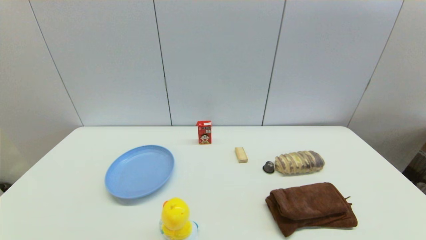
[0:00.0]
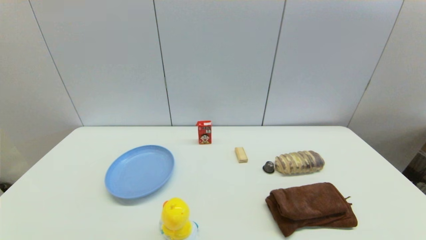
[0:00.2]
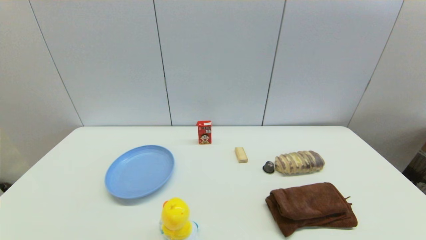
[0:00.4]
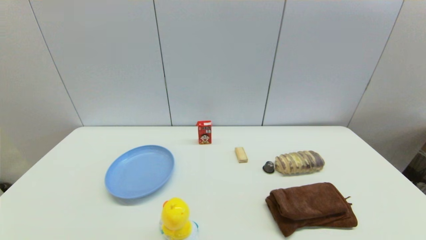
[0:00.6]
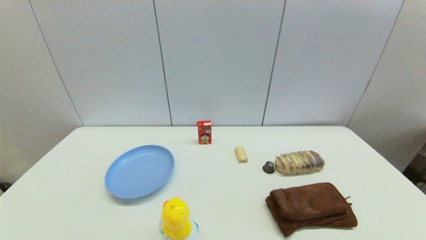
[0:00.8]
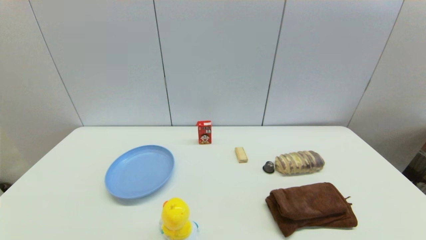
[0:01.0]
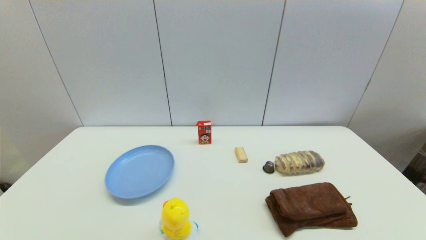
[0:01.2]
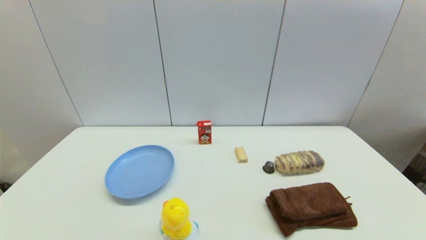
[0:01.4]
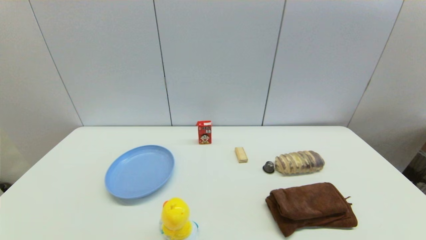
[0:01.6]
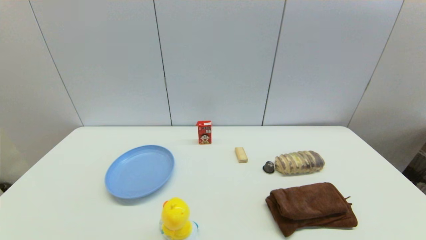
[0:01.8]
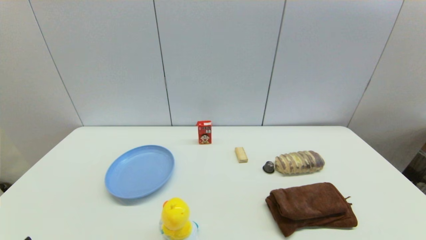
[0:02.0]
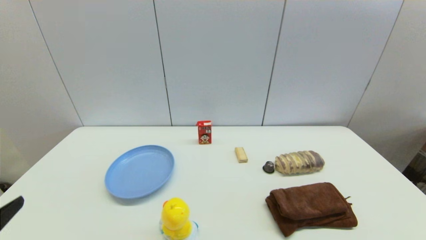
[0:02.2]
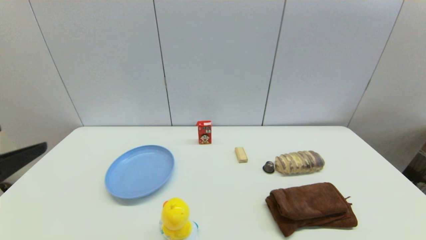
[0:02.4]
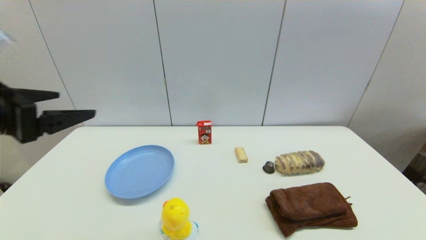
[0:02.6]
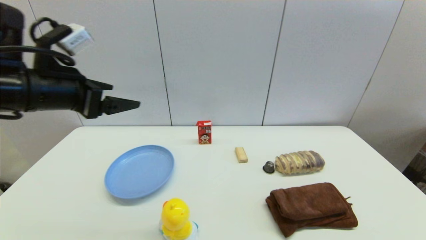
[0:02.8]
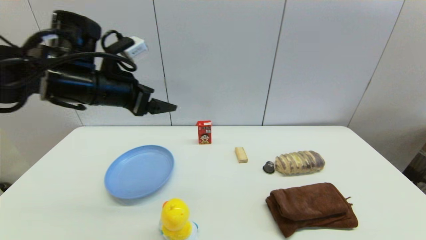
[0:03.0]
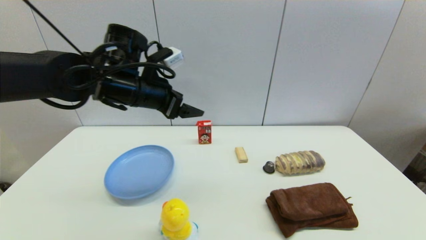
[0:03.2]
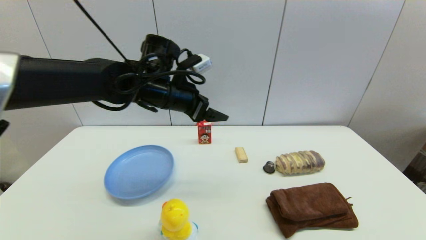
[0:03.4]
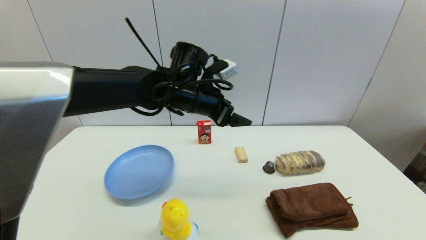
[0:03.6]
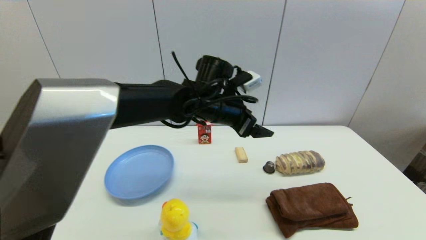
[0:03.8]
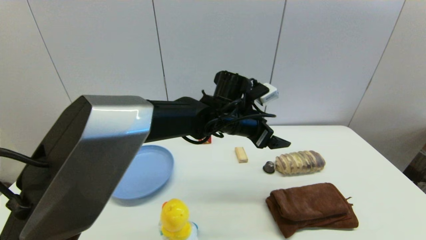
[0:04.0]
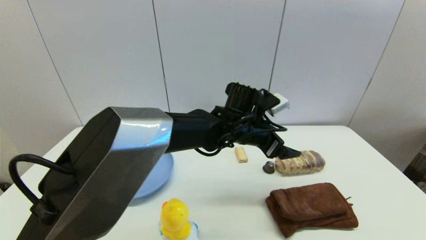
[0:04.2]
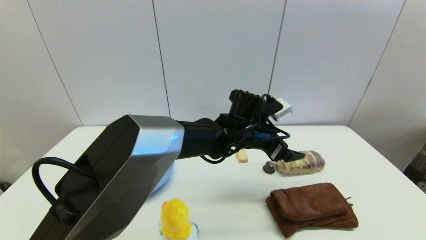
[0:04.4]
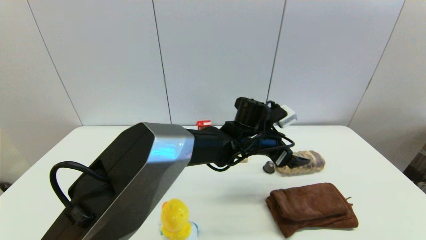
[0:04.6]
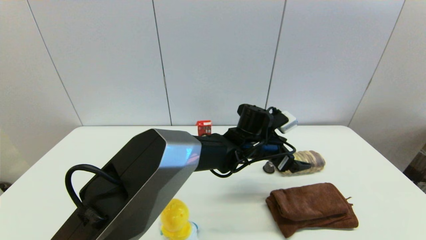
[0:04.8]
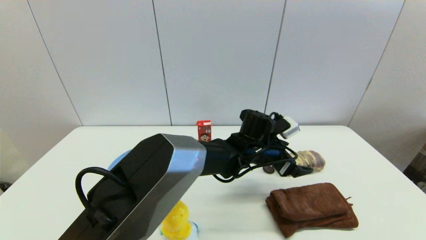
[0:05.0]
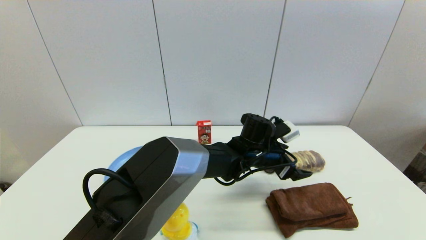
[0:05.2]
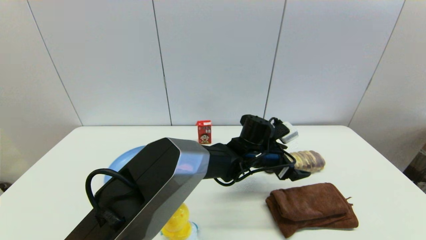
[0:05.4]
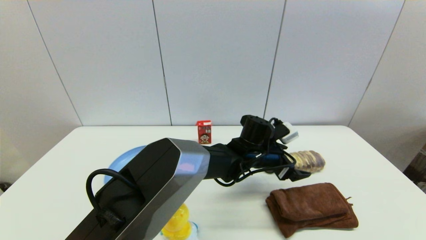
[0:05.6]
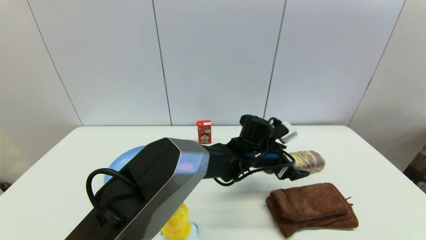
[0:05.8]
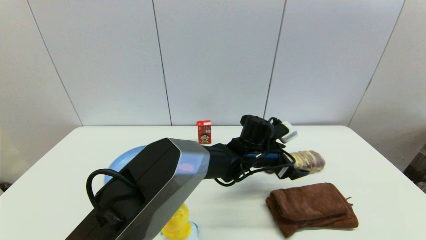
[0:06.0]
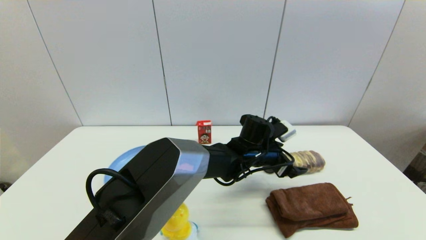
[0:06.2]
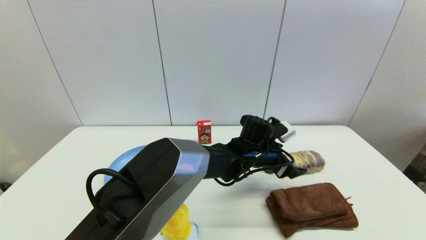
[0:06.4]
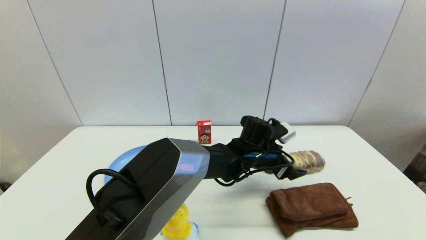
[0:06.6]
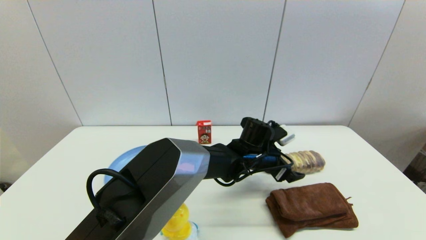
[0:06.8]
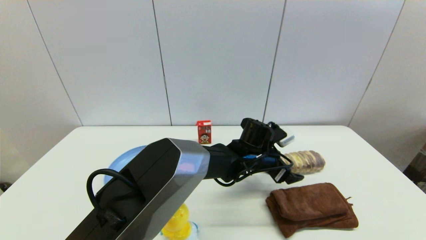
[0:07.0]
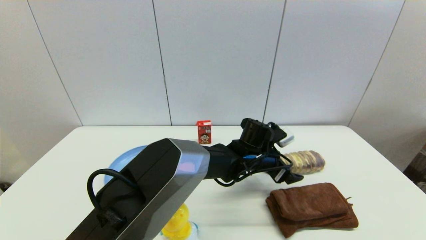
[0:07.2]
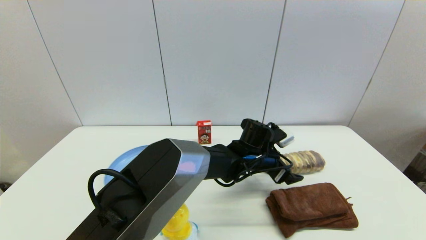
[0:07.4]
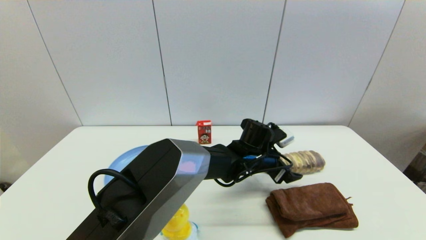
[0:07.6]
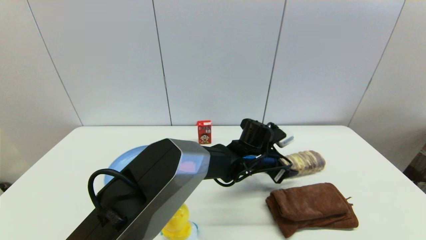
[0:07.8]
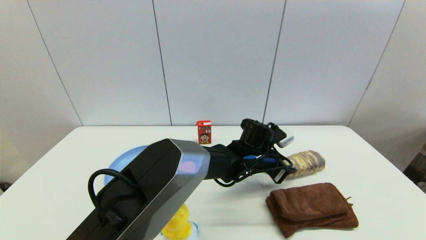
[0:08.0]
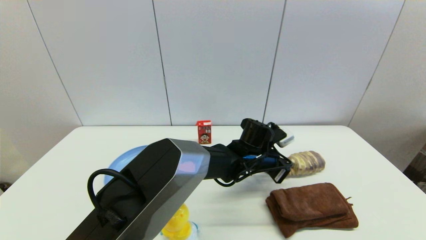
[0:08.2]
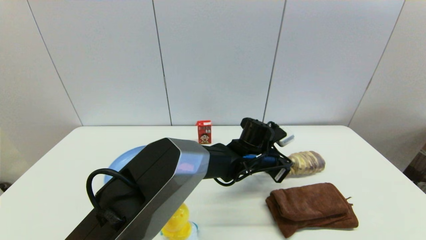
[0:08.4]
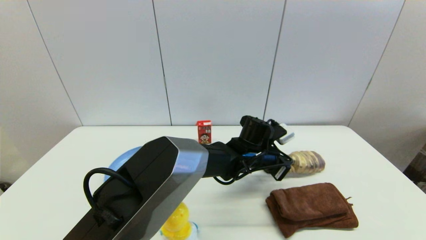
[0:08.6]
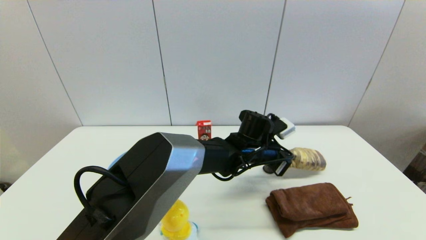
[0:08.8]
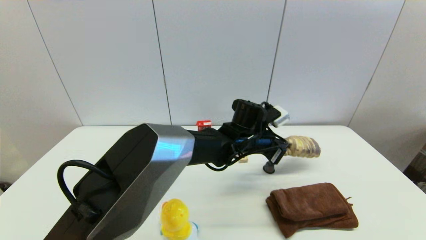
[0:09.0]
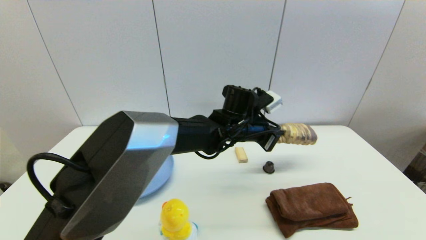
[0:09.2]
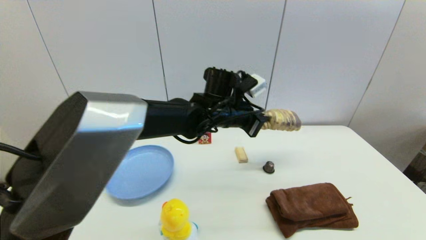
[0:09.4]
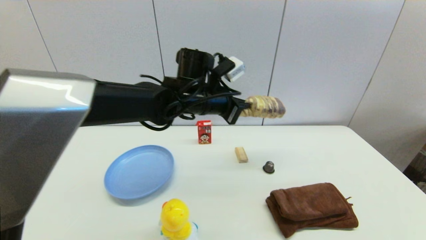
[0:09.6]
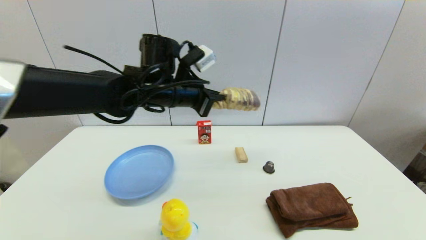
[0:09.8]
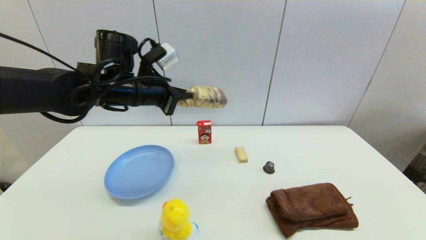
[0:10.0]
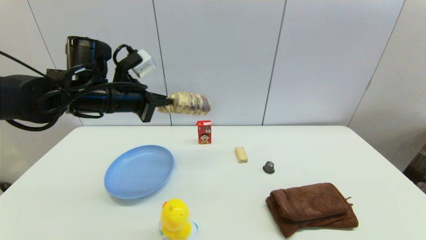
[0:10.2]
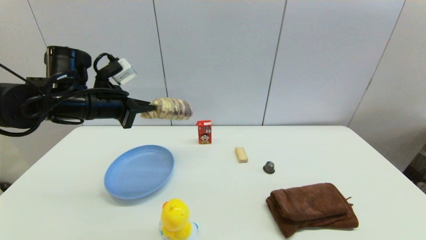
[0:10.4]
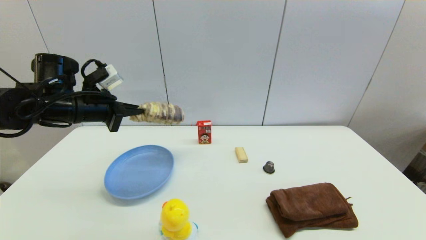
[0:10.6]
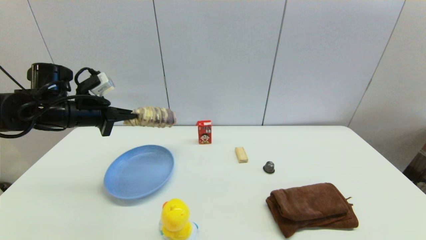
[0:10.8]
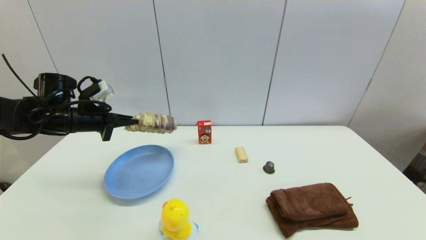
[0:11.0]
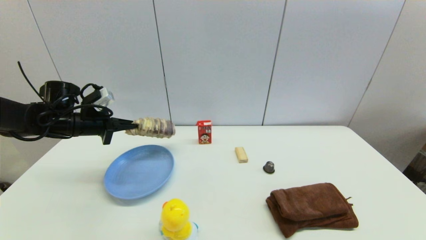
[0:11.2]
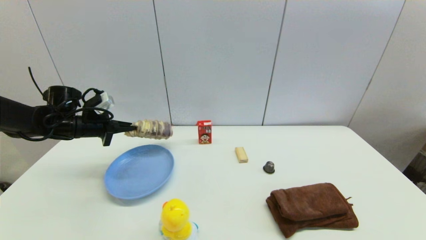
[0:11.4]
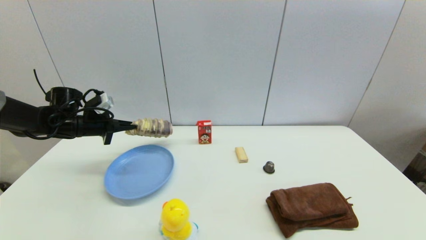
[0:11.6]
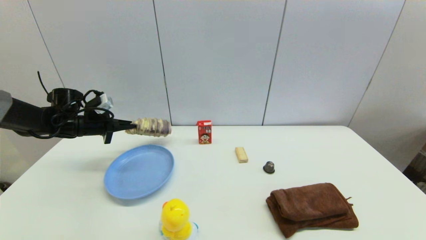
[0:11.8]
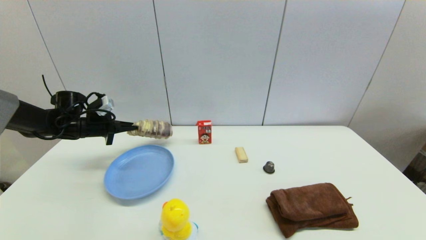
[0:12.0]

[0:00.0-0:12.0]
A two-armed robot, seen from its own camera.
Step, 0:02.0 to 0:08.2: Grasp the long bread with left gripper.
0:01.6 to 0:03.0: The left gripper moves forward and upward, roughly 35 cm.
0:03.0 to 0:04.4: The left gripper travels to the right and downward by some 30 cm.
0:04.4 to 0:06.0: The left gripper moves downward, some 5 cm.
0:06.0 to 0:07.6: There are only small adjustments of the grippers.
0:07.6 to 0:09.0: The left gripper is displaced upward by roughly 5 cm, and closes up.
0:09.0 to 0:10.4: The left gripper moves to the left, approximately 35 cm.
0:10.4 to 0:12.0: The left gripper shifts approximately 20 cm to the left, downward and forward.

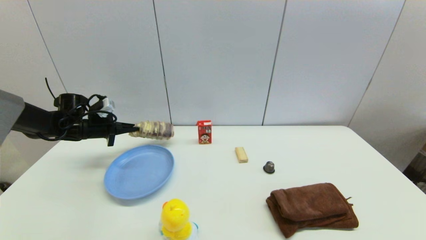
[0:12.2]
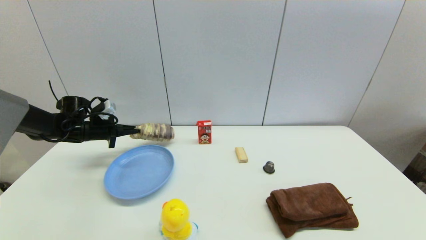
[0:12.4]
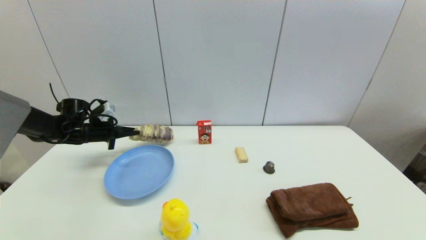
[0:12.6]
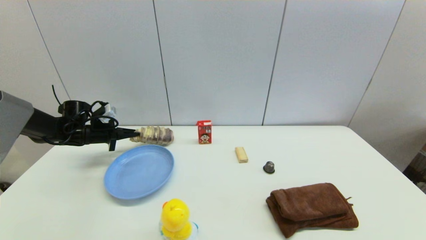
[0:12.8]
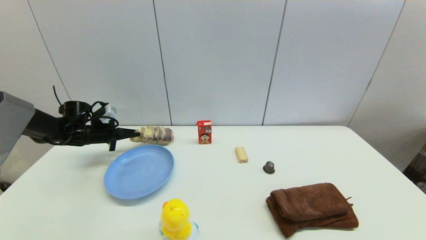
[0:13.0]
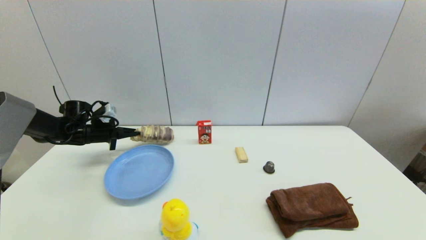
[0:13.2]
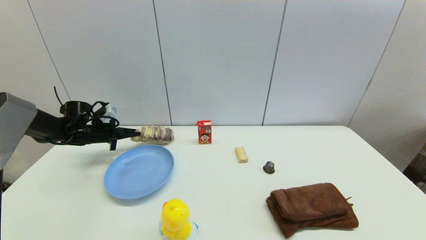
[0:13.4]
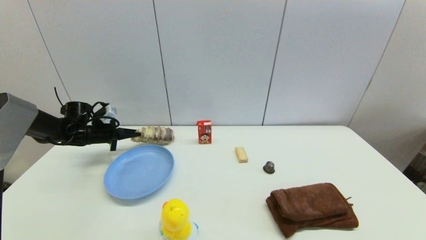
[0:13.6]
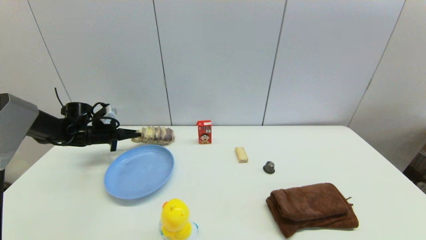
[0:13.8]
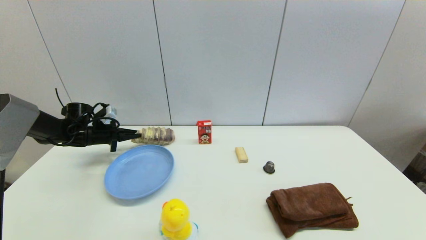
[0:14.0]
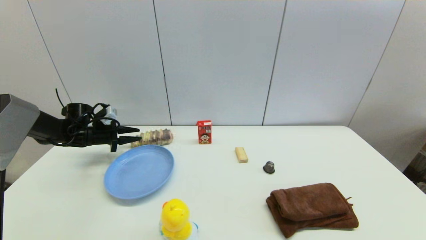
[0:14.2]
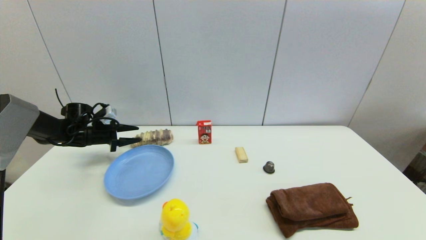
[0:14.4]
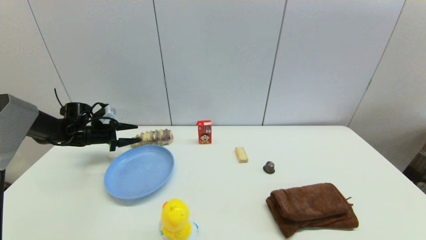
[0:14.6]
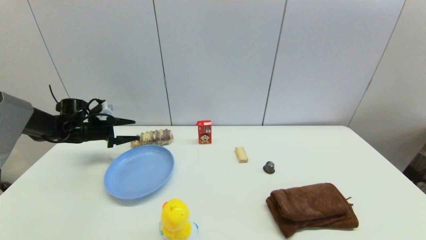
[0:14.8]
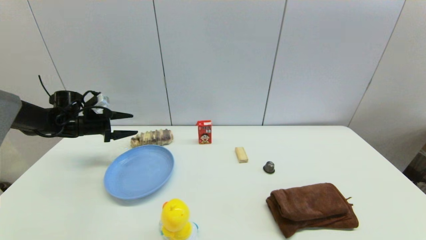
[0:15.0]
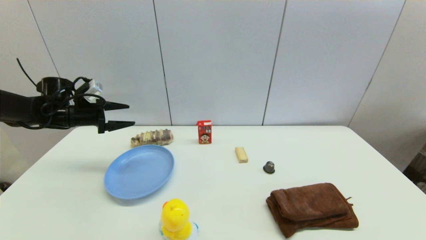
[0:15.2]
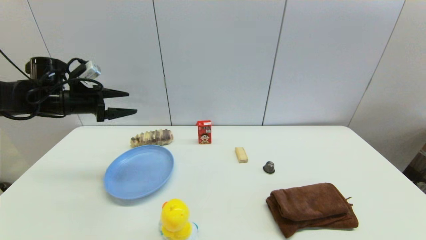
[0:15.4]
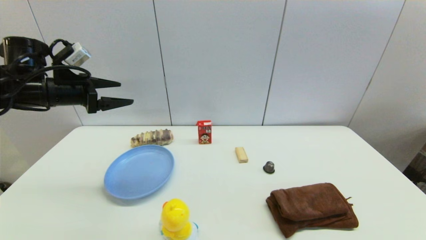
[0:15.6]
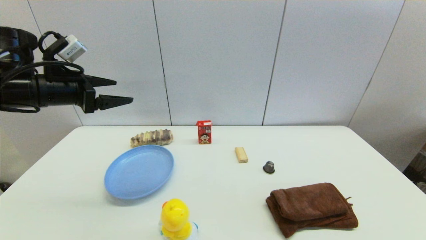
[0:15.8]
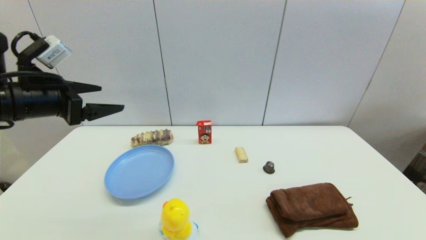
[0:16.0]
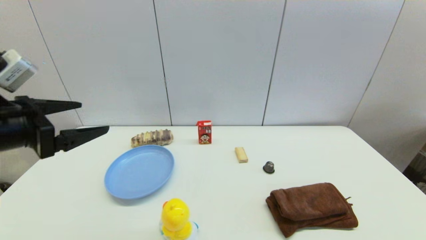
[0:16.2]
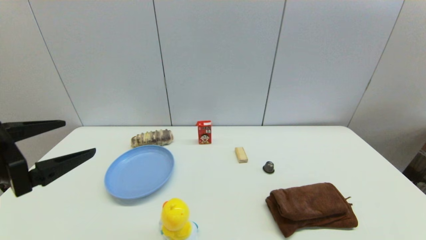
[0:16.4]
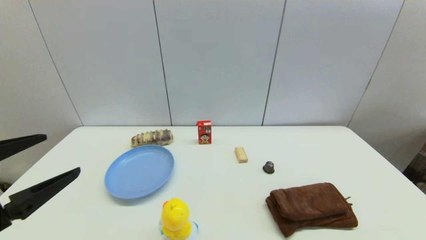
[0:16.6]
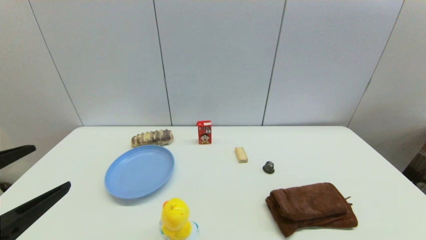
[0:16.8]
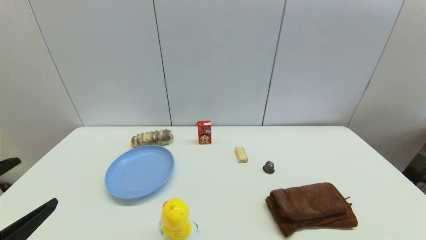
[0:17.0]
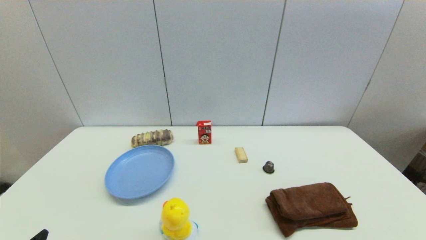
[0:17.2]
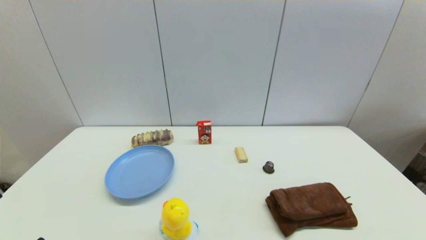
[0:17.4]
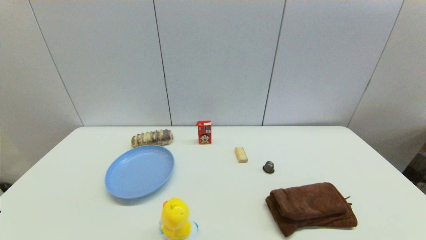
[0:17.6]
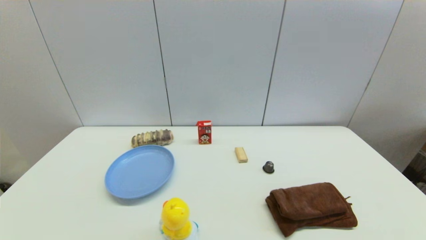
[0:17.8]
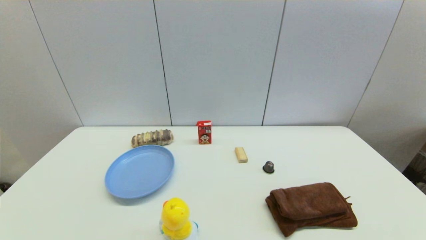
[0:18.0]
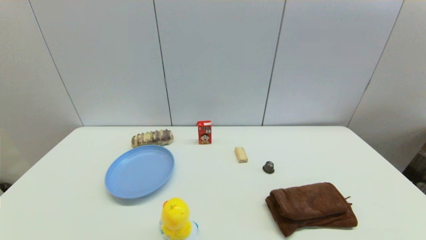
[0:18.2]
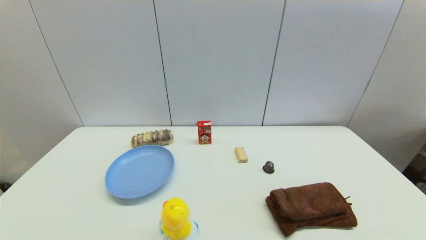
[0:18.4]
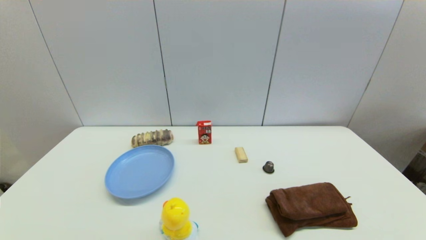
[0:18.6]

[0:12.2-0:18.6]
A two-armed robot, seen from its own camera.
Step, 0:12.2 to 0:14.4: Place the long bread on the table with left gripper.
0:12.2 to 0:13.8: The grippers stay close to where they were, moving slightly.
0:13.8 to 0:15.4: The left gripper heads upward and backward, covering roughly 15 cm, and opens.
0:15.4 to 0:17.0: The left gripper shifts some 35 cm backward.
0:17.0 to 0:18.6: The left gripper travels downward and backward by approximately 15 cm.
